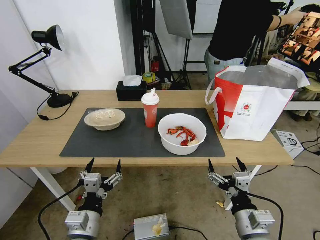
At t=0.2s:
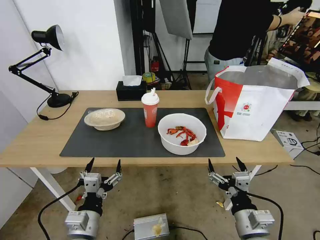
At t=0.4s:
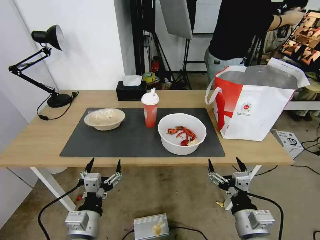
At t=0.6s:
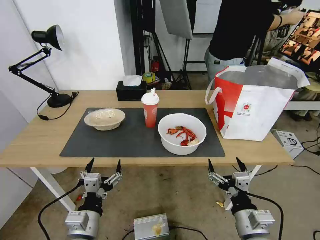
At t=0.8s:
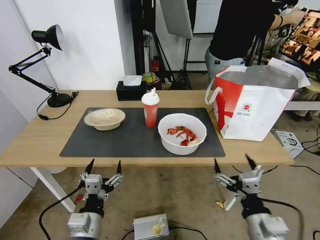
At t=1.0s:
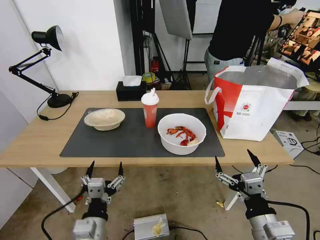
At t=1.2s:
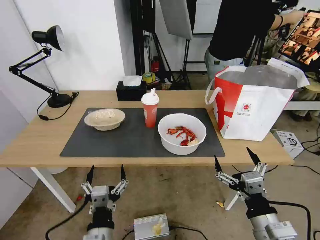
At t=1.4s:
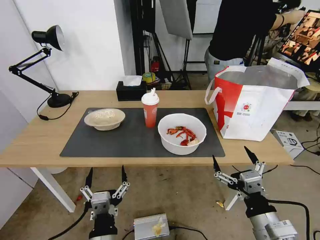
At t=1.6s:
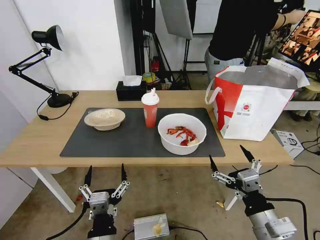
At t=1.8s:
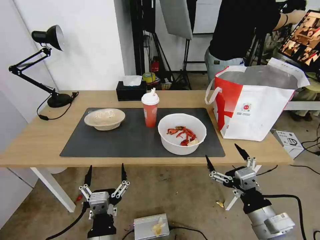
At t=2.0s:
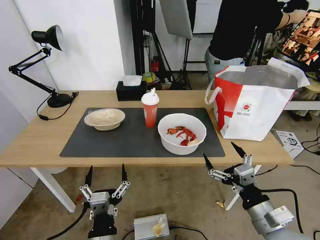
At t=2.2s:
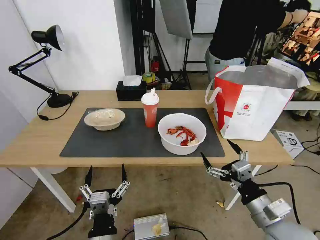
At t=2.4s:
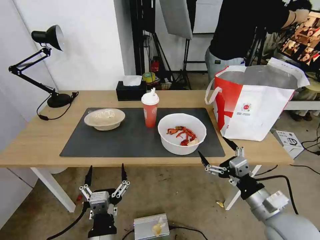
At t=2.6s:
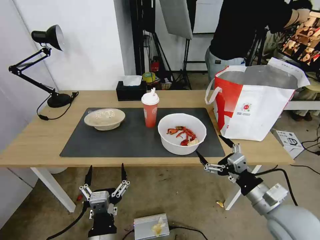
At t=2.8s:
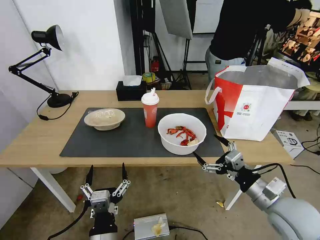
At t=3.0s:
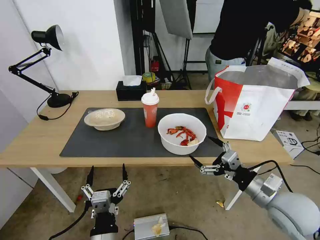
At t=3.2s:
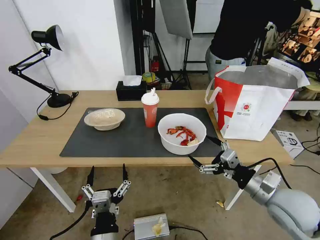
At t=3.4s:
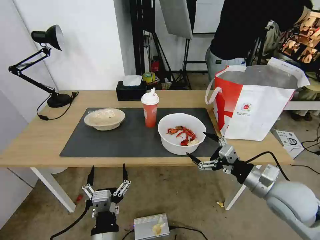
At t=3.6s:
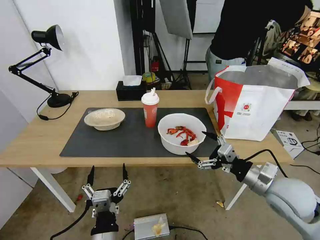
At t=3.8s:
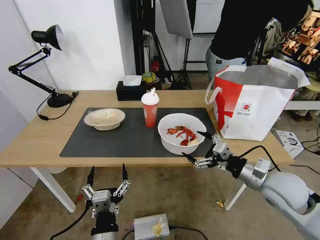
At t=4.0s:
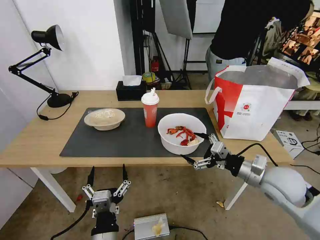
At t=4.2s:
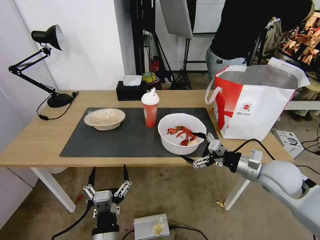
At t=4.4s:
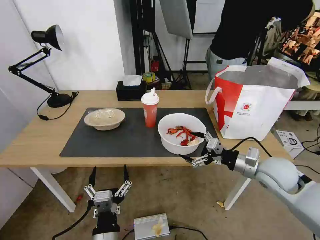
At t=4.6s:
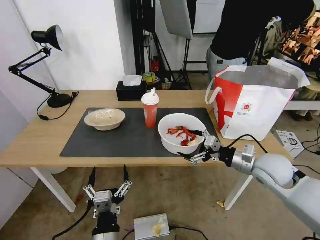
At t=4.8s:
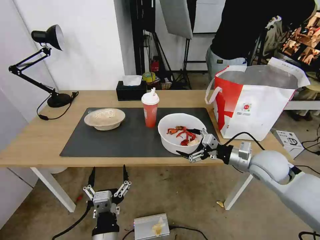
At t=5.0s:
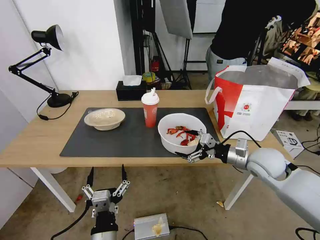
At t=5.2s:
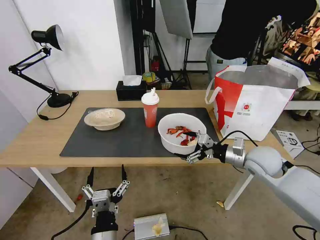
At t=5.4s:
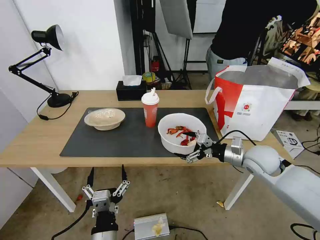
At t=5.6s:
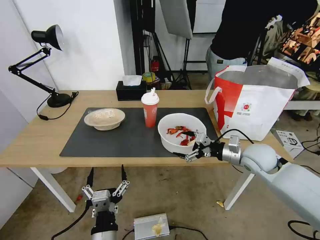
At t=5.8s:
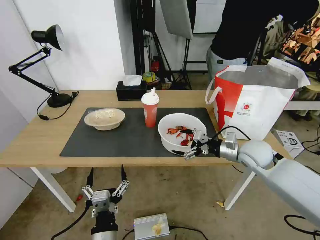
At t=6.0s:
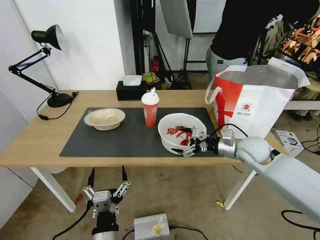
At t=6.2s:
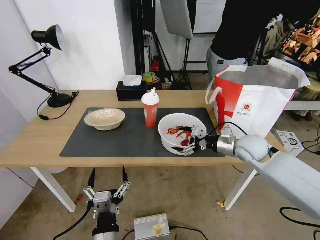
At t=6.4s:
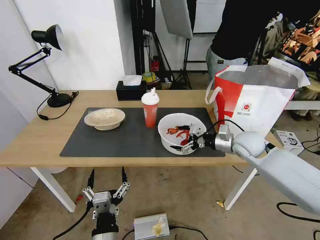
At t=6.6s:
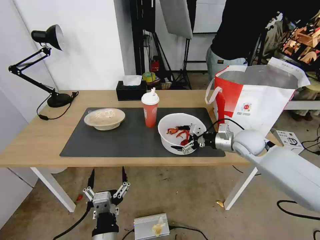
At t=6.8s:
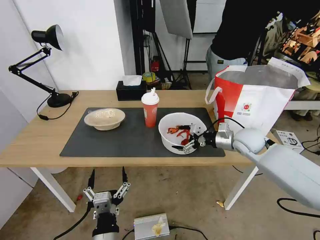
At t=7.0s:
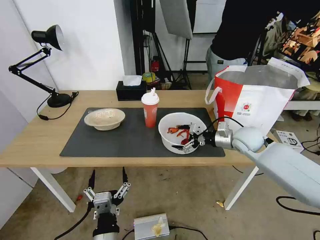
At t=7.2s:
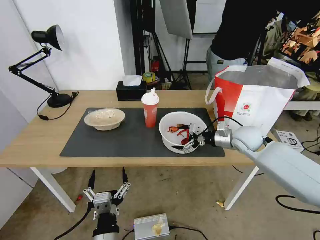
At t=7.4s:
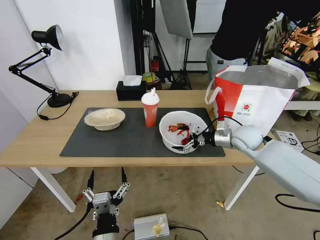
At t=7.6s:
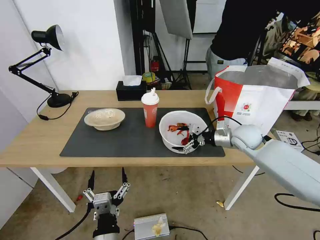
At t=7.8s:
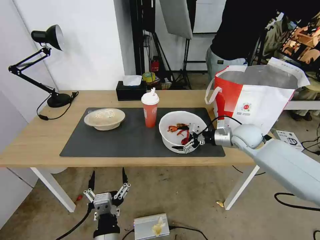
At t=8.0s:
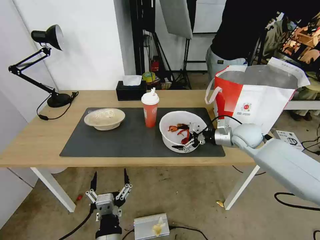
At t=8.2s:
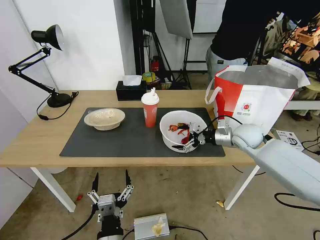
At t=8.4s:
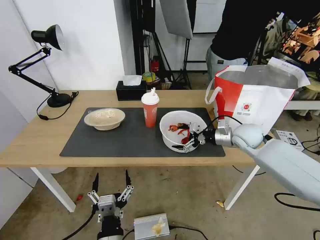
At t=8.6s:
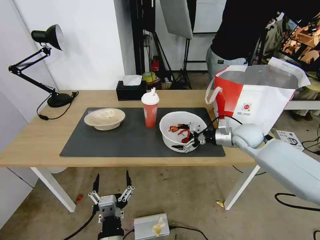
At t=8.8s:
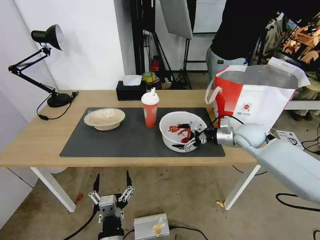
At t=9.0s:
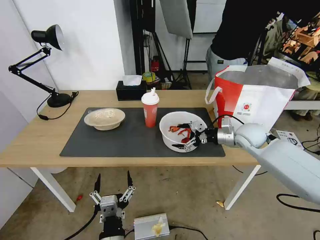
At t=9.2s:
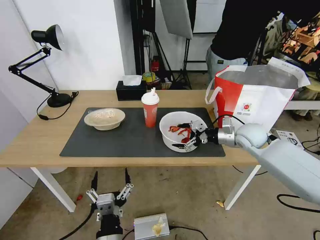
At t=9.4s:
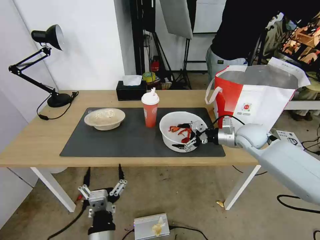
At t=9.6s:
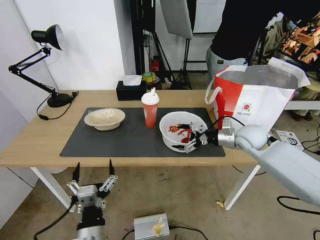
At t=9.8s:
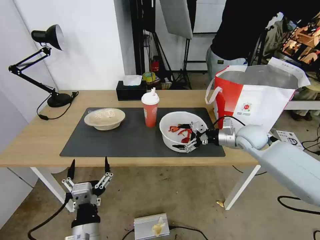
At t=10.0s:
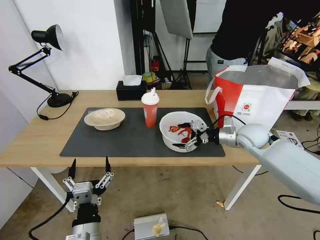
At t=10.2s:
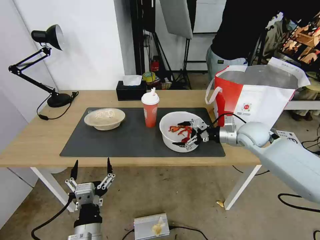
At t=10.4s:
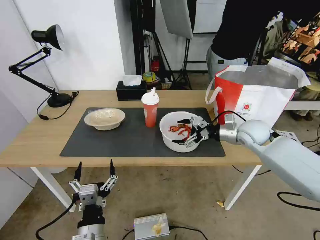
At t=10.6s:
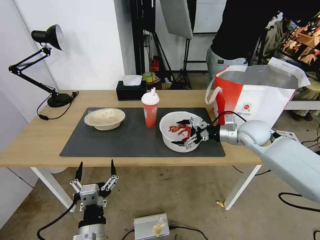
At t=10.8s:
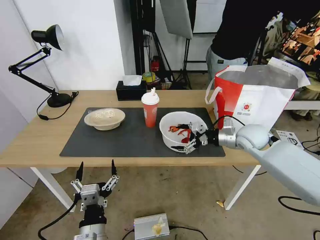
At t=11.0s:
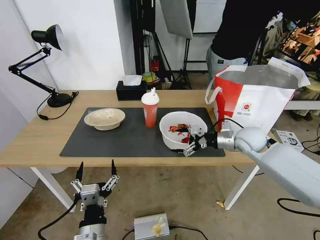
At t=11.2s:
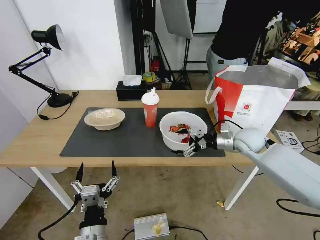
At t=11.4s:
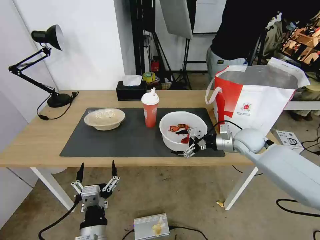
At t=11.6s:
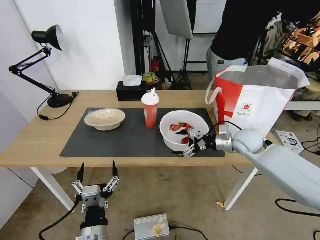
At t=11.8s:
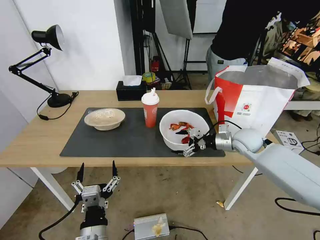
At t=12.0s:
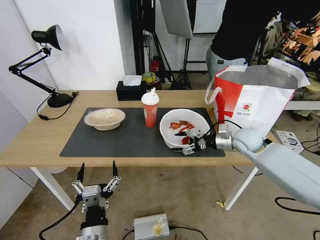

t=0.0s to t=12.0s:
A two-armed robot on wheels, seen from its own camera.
Task of the whole recording: Pick up the trash from the table and place it into the takeout bag.
t=1.6s to t=3.0s: The right gripper heads forward and to the right, covering some 10 cm.
t=3.0s to t=4.4s: The right gripper is displaced forward by approximately 10 cm.
t=4.4s to t=6.0s: The right gripper heads forward, covering about 10 cm.
t=6.0s to t=7.6s: The right gripper heads forward, covering roughly 5 cm.
t=7.6s to t=9.0s: The grippers move only a little.
t=9.0s to t=10.4s: The left gripper is displaced to the left by some 5 cm.
t=10.4s to t=12.0s: The grippers move only a little.

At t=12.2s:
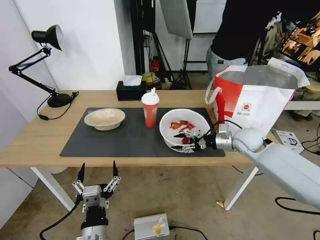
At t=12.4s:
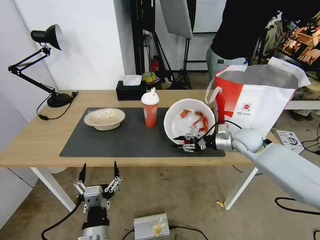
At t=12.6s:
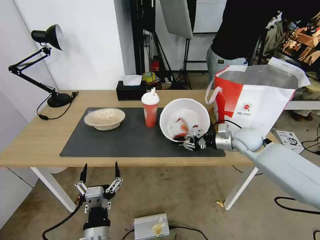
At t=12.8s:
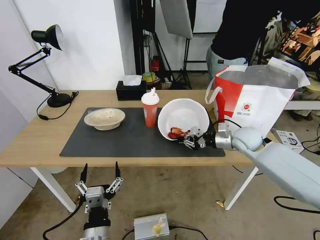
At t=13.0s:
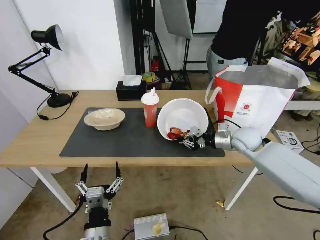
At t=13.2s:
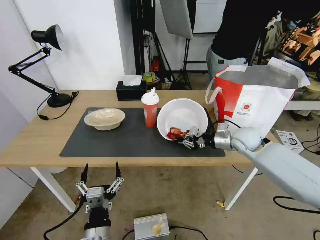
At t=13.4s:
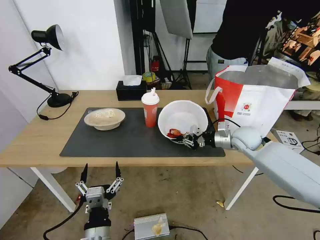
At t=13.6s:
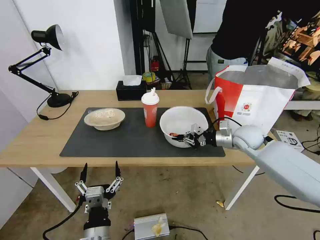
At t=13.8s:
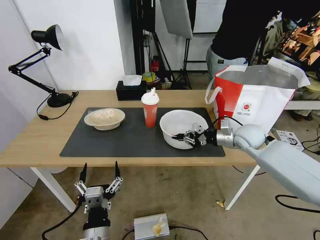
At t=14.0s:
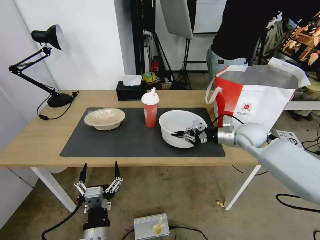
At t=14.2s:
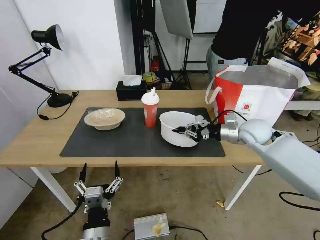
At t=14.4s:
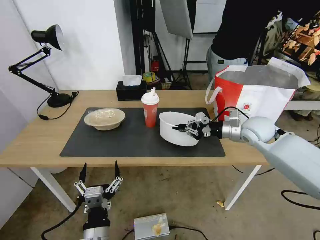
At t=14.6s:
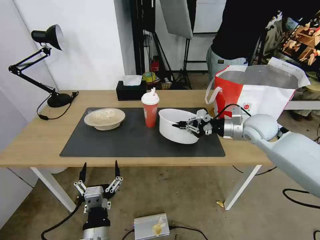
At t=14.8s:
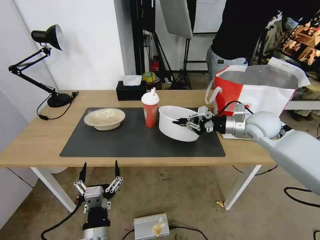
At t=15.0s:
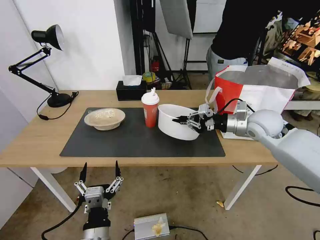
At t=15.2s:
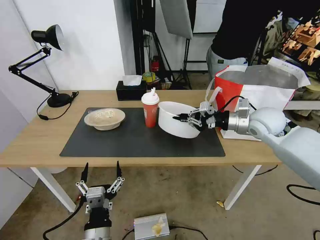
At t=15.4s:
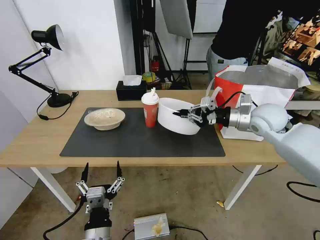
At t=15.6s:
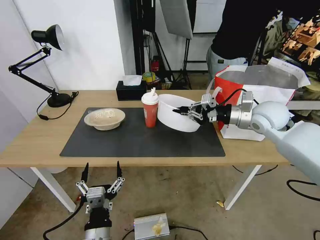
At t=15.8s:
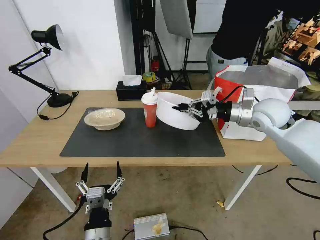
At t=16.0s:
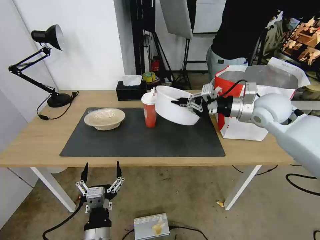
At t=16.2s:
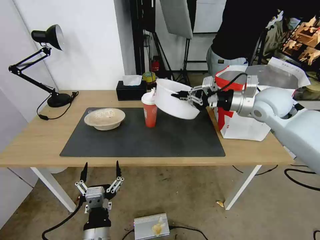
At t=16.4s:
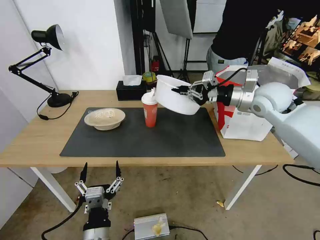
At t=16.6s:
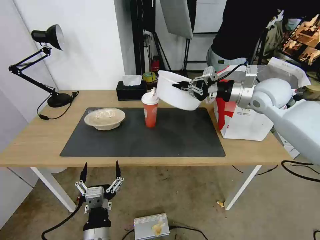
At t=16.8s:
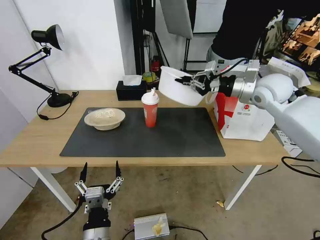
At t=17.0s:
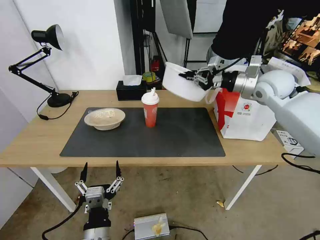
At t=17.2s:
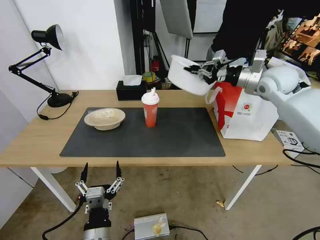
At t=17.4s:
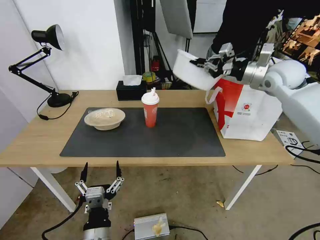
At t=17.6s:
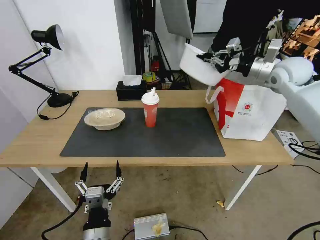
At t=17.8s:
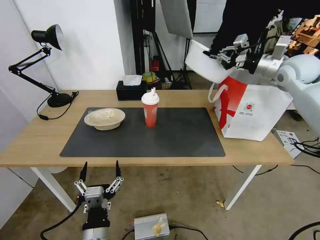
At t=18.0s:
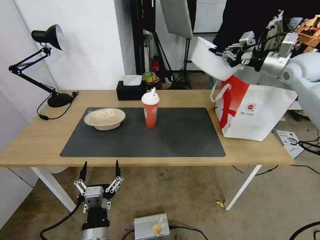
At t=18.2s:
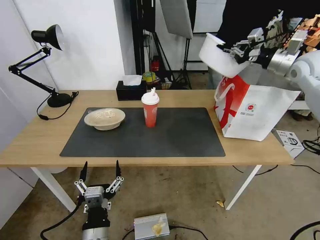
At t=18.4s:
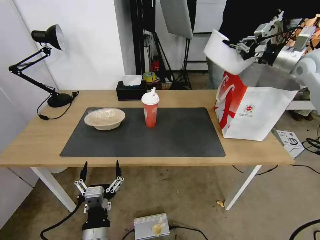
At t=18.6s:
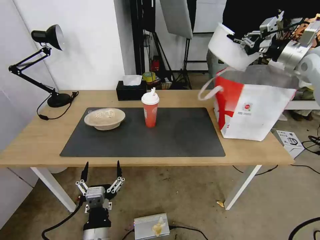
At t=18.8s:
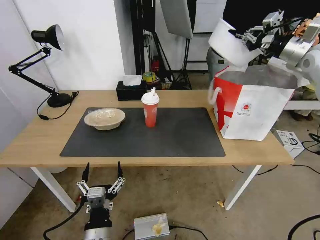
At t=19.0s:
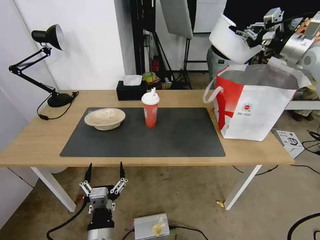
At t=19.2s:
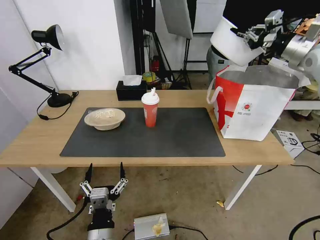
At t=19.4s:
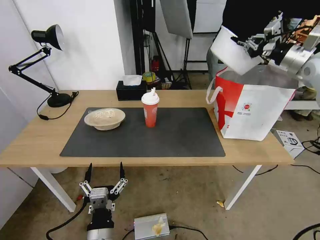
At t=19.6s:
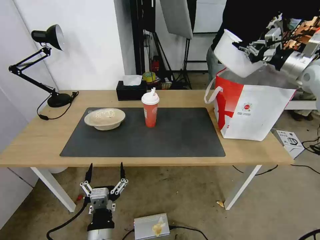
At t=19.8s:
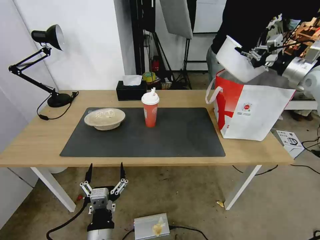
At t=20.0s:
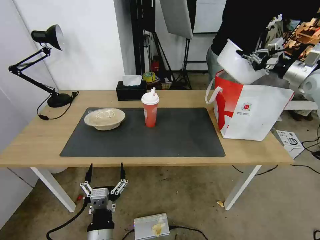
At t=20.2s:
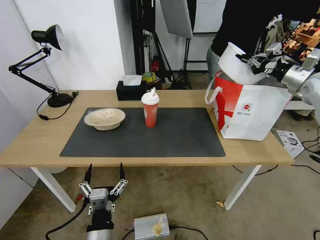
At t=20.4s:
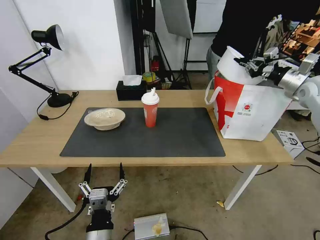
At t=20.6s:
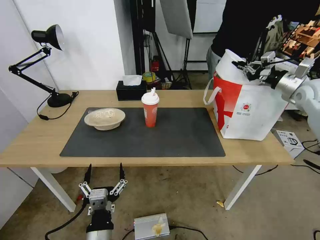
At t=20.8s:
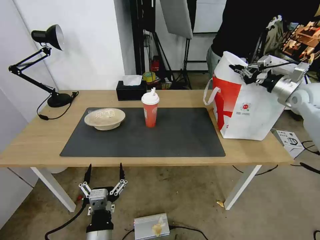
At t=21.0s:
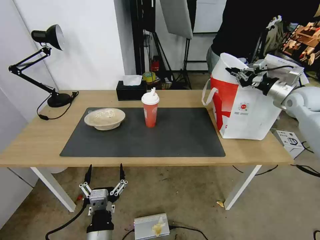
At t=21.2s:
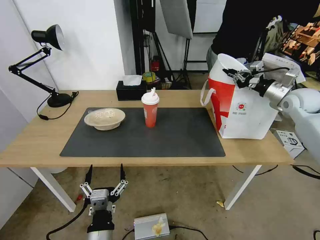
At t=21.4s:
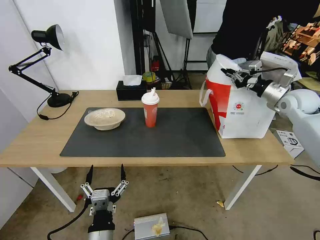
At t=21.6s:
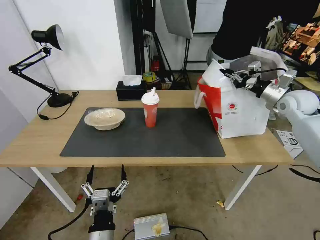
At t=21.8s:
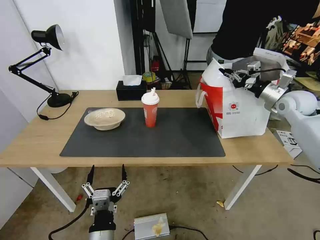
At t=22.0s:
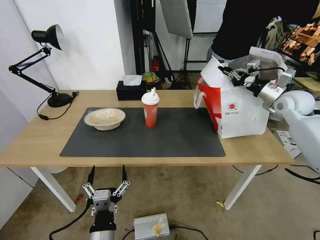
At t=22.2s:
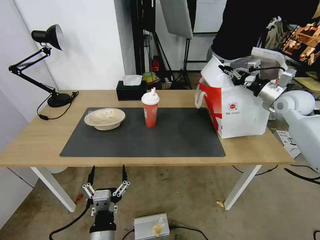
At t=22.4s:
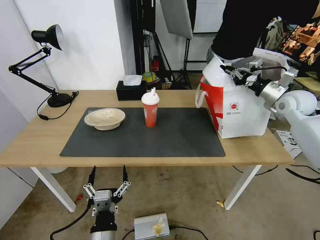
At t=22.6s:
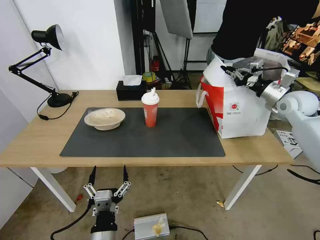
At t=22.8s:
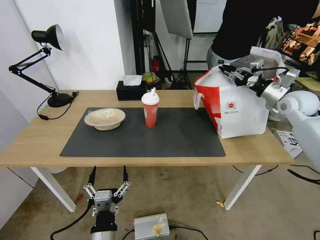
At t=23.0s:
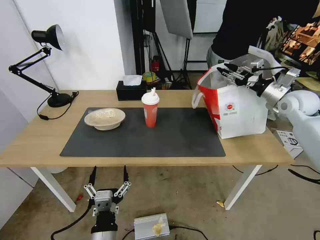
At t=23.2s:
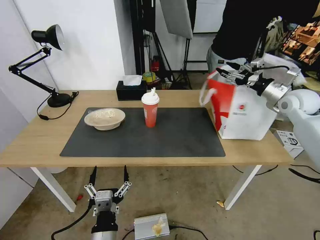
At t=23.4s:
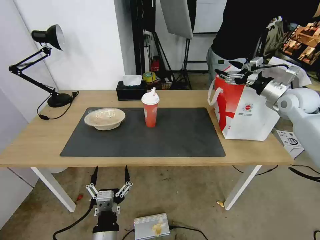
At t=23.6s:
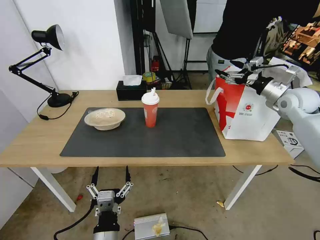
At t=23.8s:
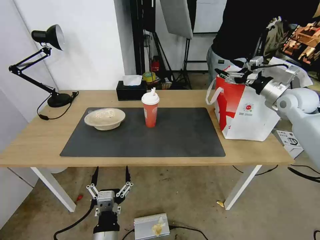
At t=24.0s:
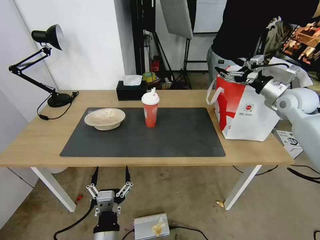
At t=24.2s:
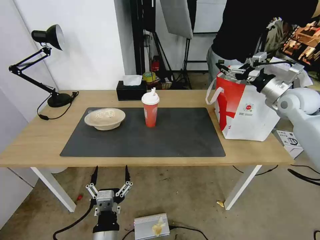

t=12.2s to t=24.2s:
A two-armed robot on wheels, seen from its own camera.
Task of the whole recording: Pick up the trash from the table and place it into the takeout bag.
t=12.2s to t=13.8s: The right gripper closes up.
t=13.8s to t=15.2s: The right gripper shifts about 10 cm upward.
t=15.2s to t=16.6s: The right gripper is displaced upward by about 5 cm.
t=16.6s to t=18.2s: The right gripper goes approximately 15 cm to the right, upward and forward.
t=18.2s to t=19.8s: The right gripper ends up about 5 cm from where it was.
t=19.8s to t=21.2s: The right gripper travels downward by approximately 10 cm.
t=21.2s to t=22.6s: The grippers make only small movements.
t=22.6s to t=24.2s: The right gripper opens up.
